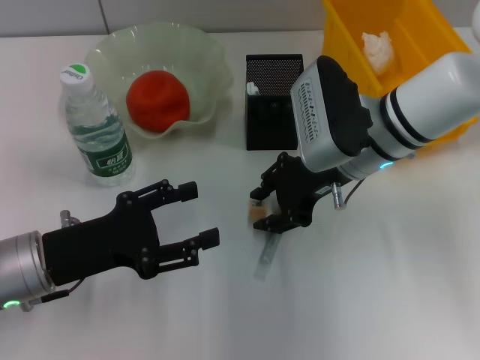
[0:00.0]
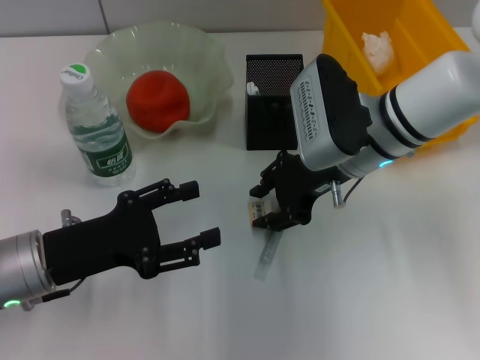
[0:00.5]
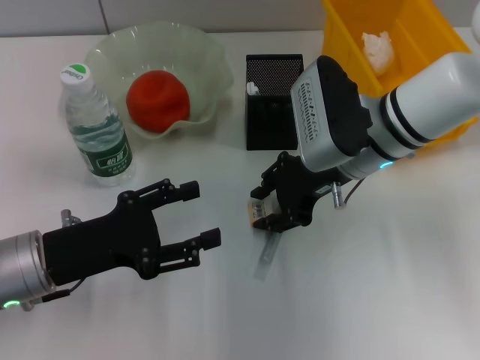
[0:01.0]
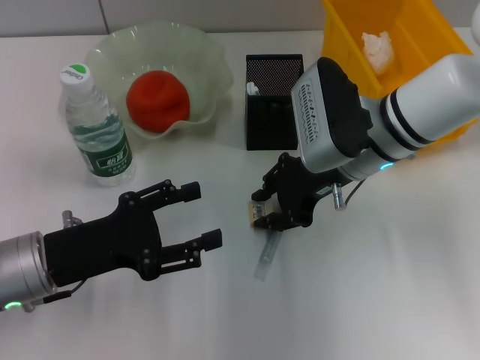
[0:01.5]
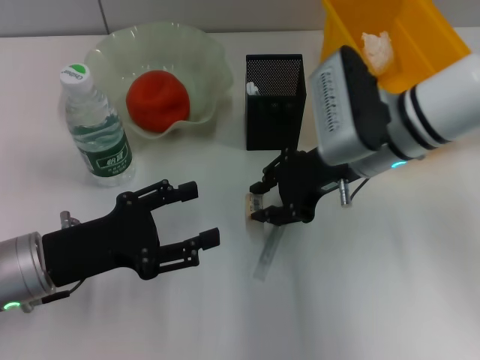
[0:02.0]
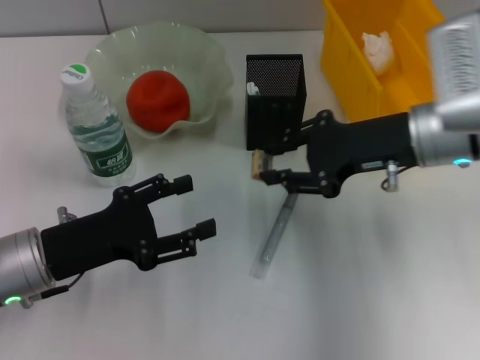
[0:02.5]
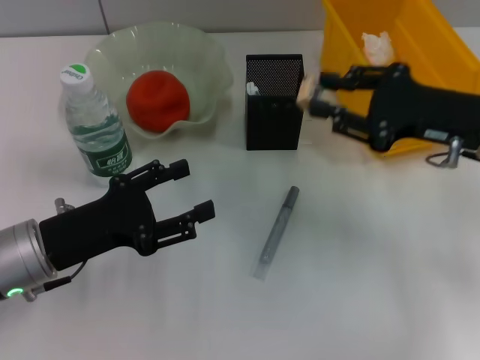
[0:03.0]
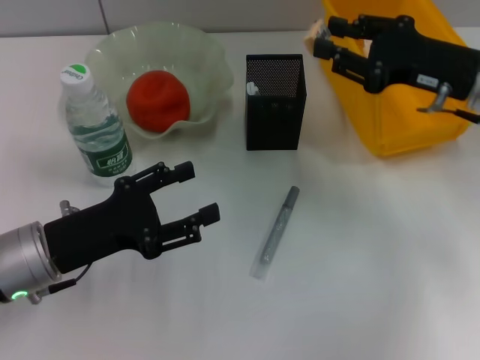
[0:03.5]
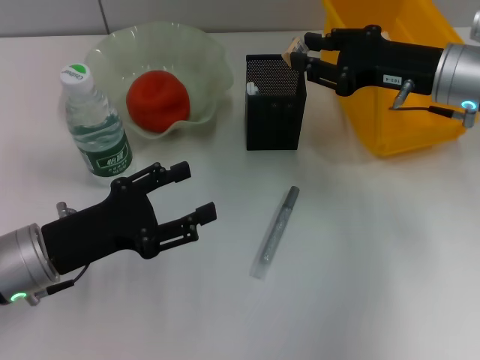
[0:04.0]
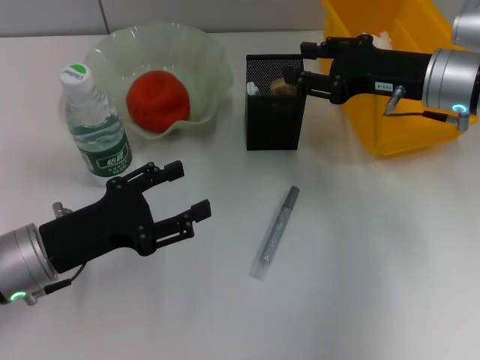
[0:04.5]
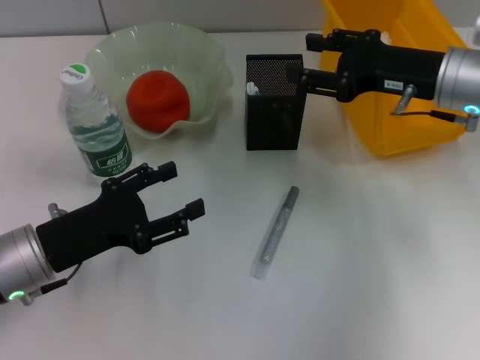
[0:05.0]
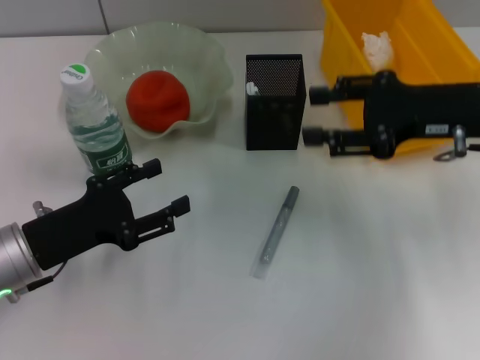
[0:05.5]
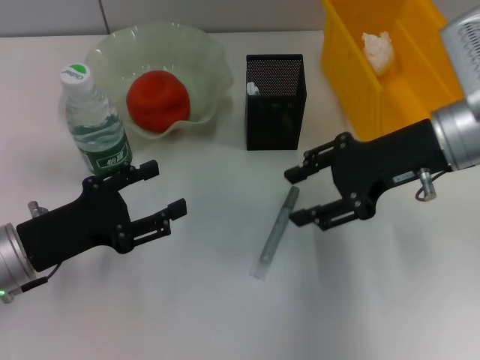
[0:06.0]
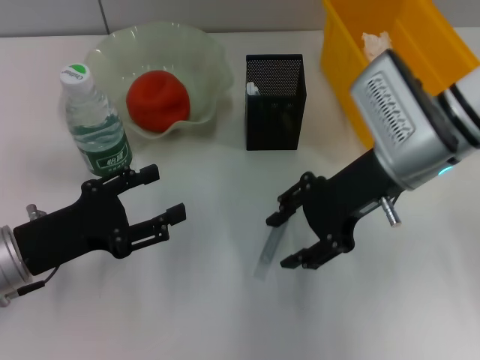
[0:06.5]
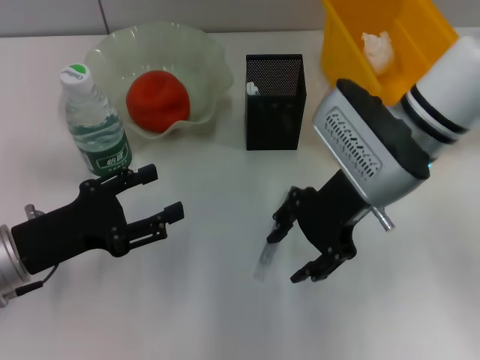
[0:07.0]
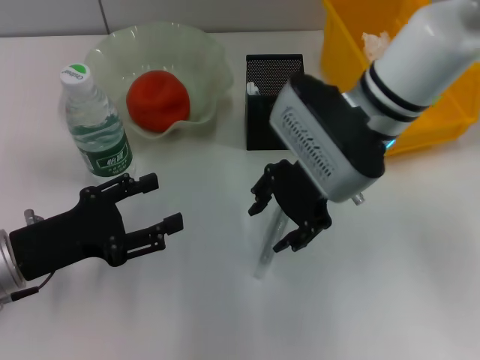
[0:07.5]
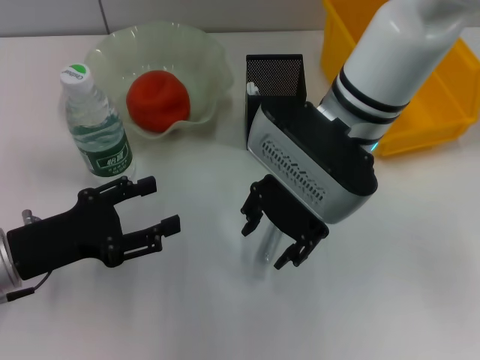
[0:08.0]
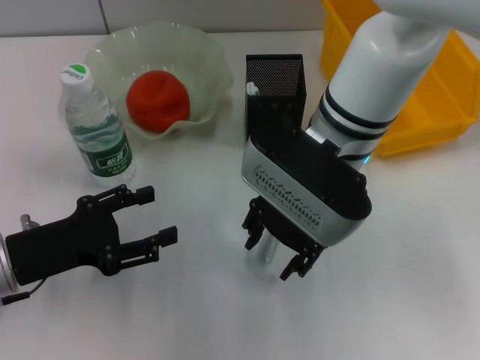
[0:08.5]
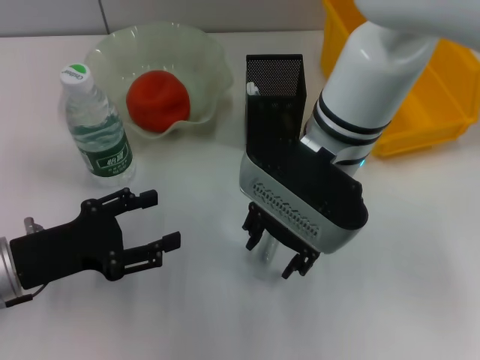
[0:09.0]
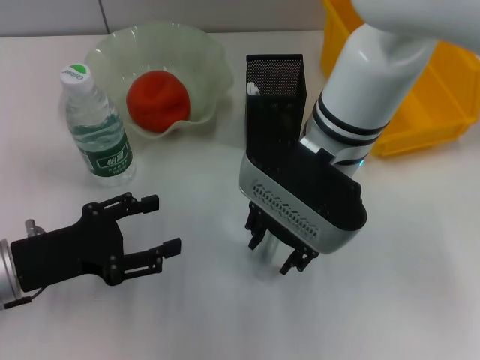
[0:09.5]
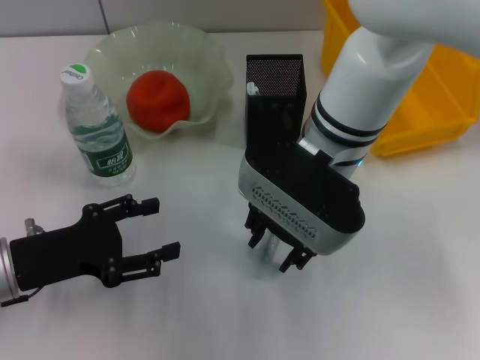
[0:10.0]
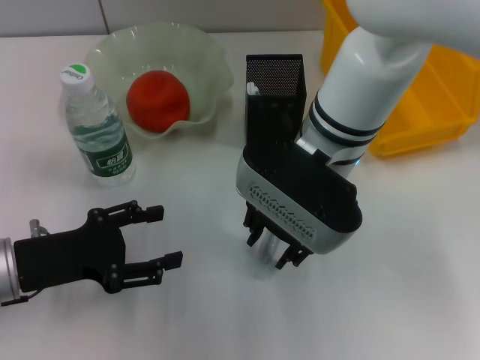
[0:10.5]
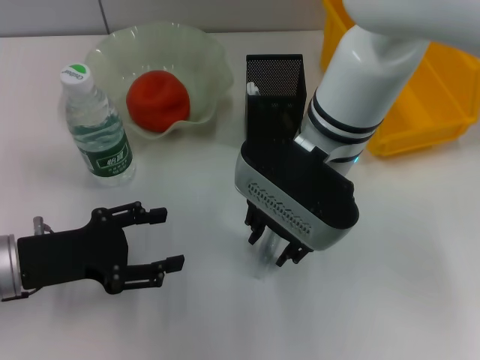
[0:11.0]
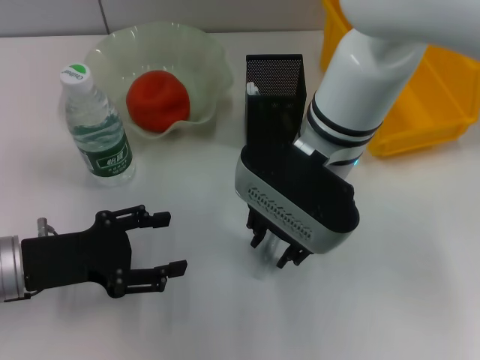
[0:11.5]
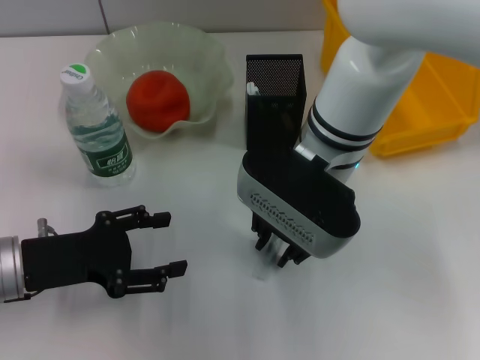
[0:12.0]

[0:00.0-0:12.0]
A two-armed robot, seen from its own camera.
Step, 0:02.0 to 0:04.5: Put the eraser into the pen holder with the right hand.
0:00.0 to 0:02.0: The grippers stay close to where they were, moving slightly.
0:02.0 to 0:04.0: The right gripper travels to the right by some 10 cm.
0:06.0 to 0:08.0: The right gripper moves to the left, about 15 cm.
0:08.0 to 0:12.0: The grippers make only small movements.

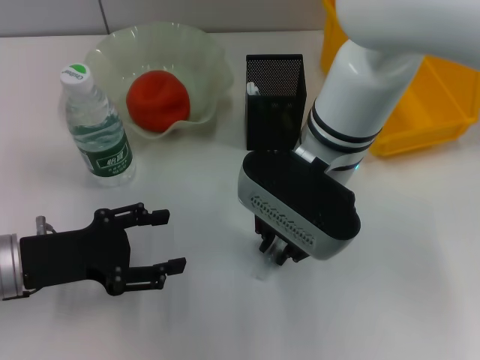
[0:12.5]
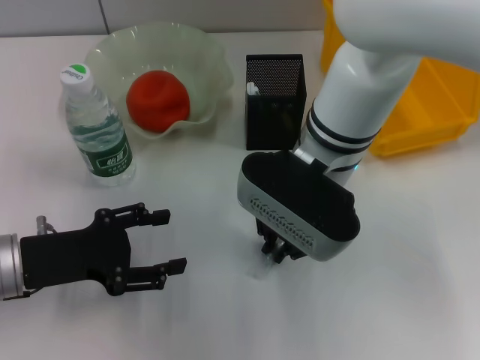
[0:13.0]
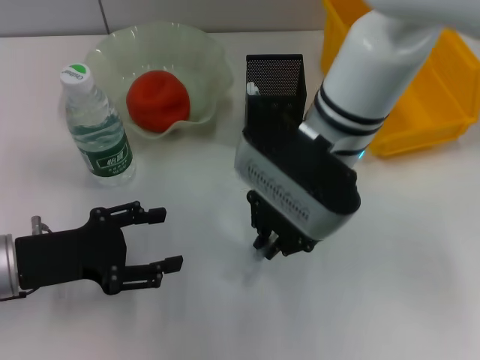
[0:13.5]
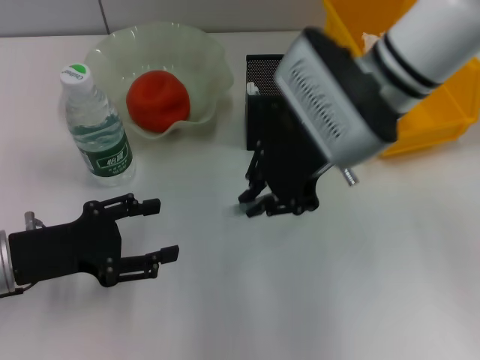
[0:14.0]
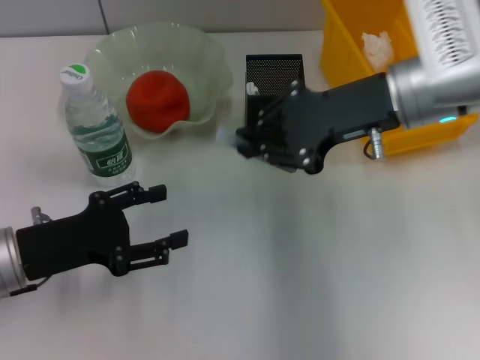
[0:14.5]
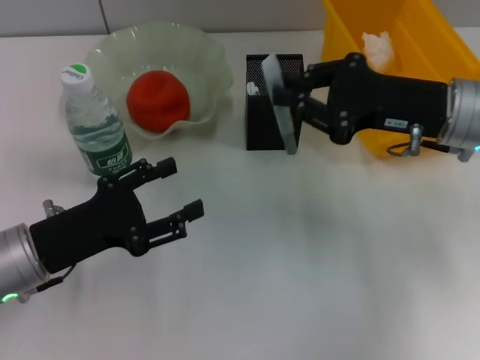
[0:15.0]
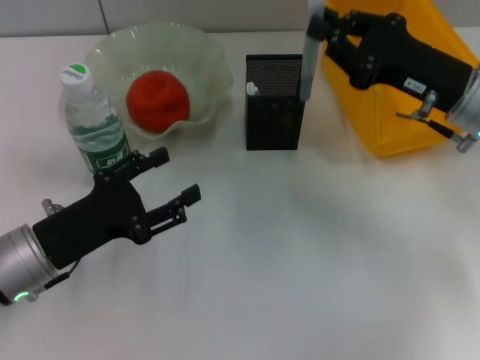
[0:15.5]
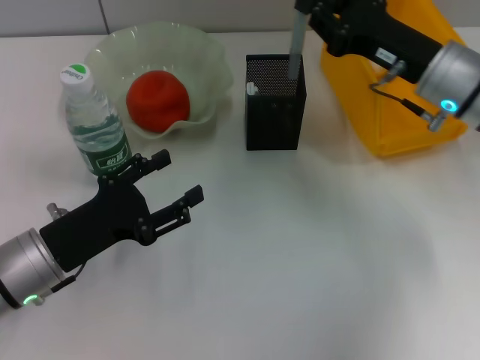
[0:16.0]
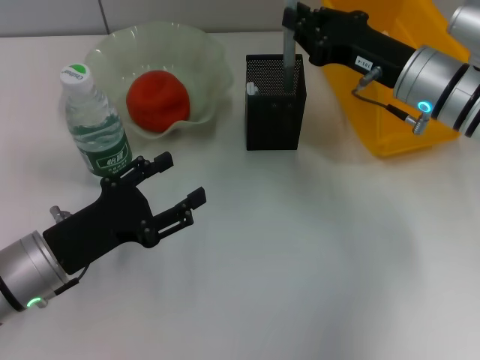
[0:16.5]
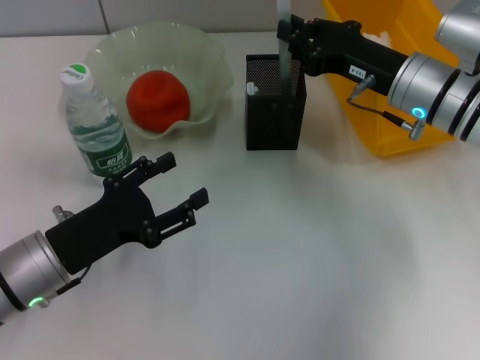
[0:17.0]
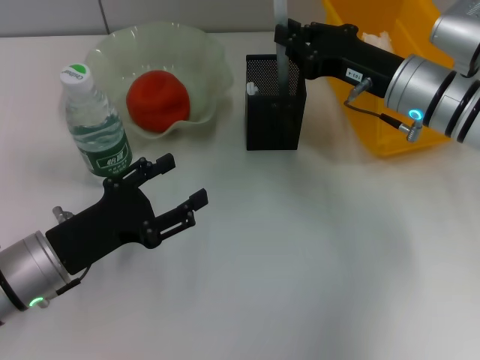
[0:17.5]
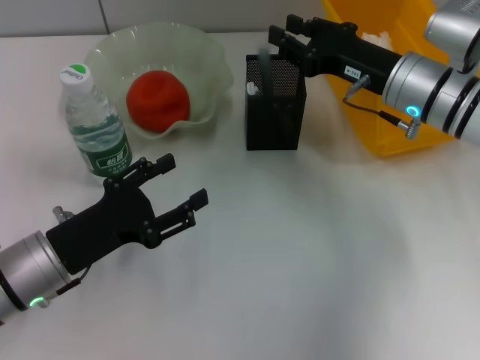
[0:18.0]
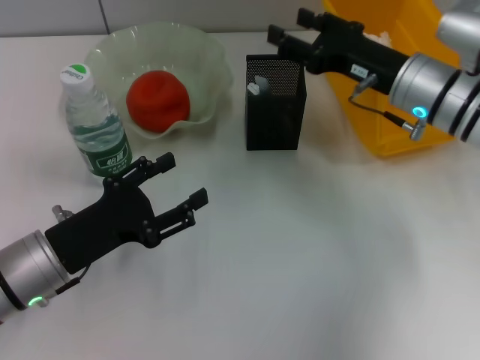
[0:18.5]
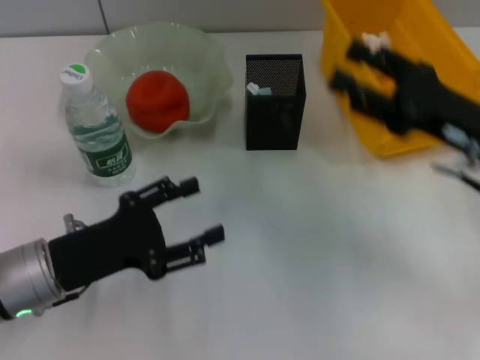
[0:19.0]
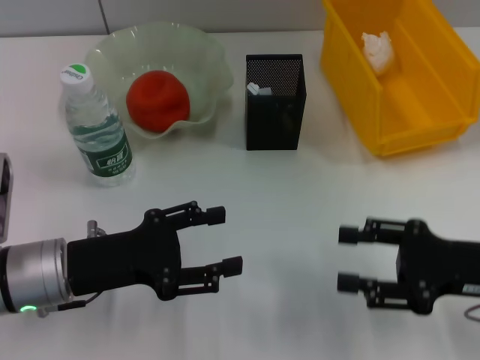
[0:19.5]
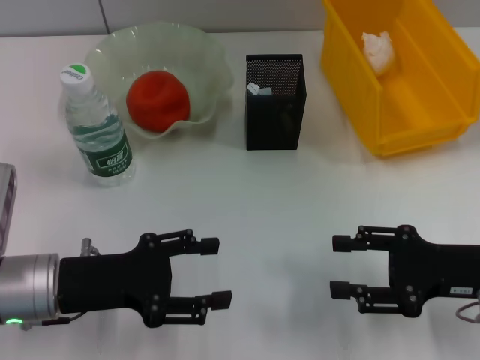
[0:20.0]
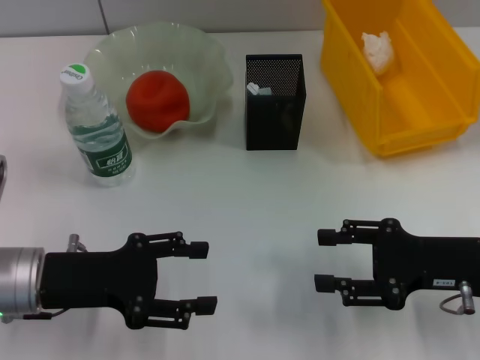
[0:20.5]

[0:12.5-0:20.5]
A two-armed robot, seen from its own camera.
Step, 0:13.5 to 0:18.0: Place the gray glue into the pen holder with the right hand.
0:12.5 to 0:14.5: The right gripper is displaced to the right by some 10 cm.
0:14.5 to 0:16.5: The right gripper heads downward, covering approximately 5 cm.
0:16.5 to 0:18.5: The right gripper opens its fingers.
0:18.5 to 0:20.5: The right gripper goes some 15 cm backward and to the right.

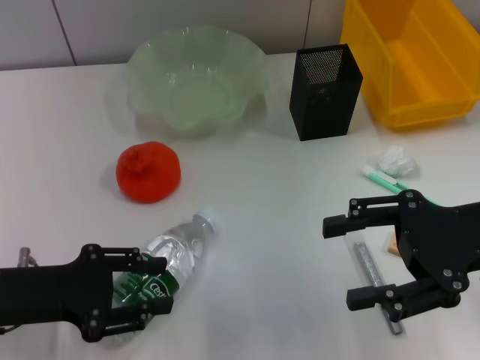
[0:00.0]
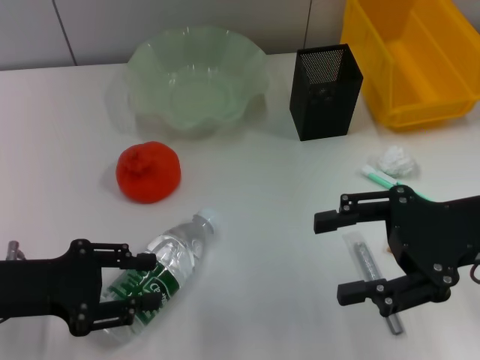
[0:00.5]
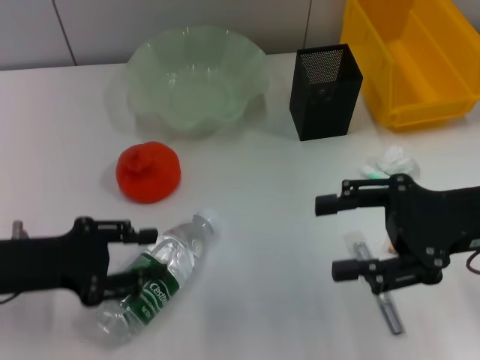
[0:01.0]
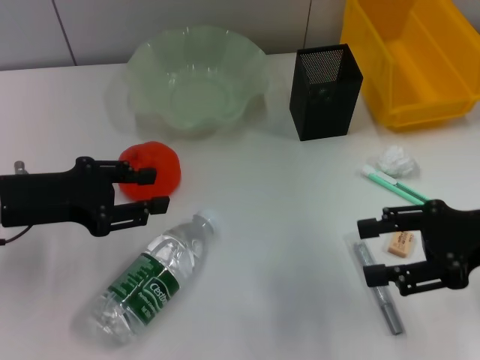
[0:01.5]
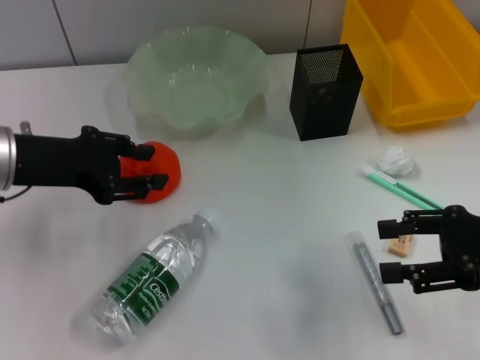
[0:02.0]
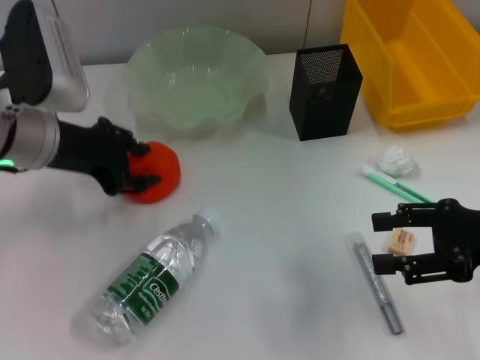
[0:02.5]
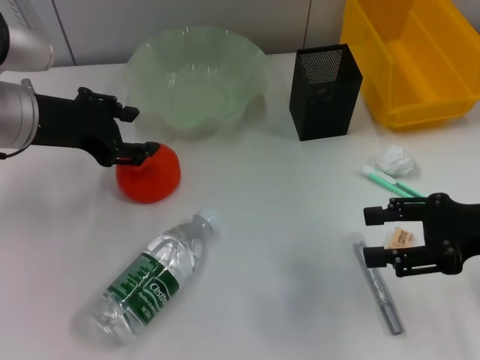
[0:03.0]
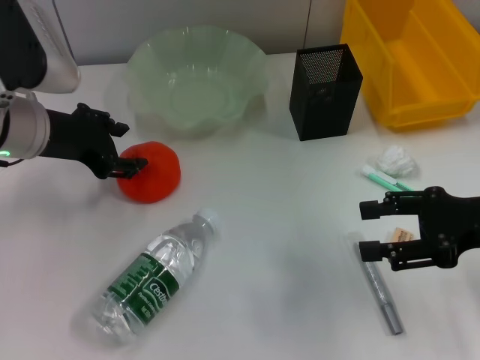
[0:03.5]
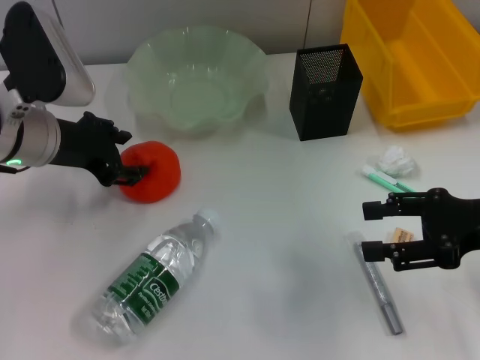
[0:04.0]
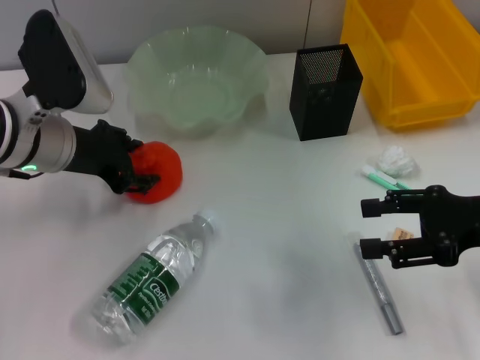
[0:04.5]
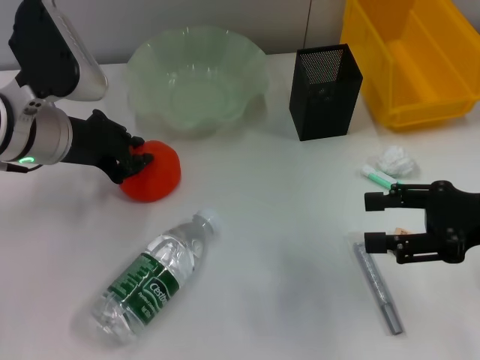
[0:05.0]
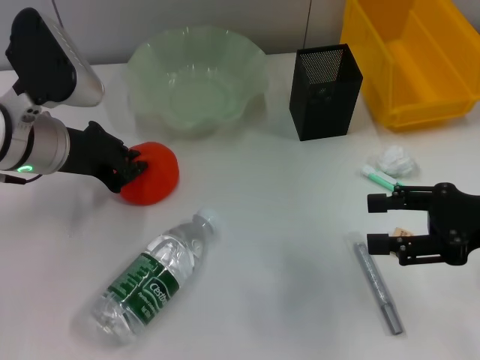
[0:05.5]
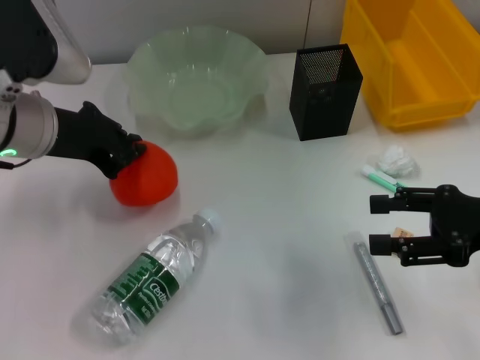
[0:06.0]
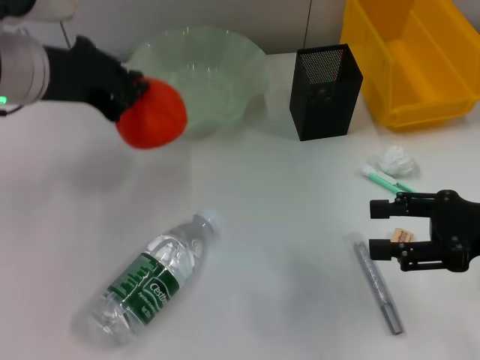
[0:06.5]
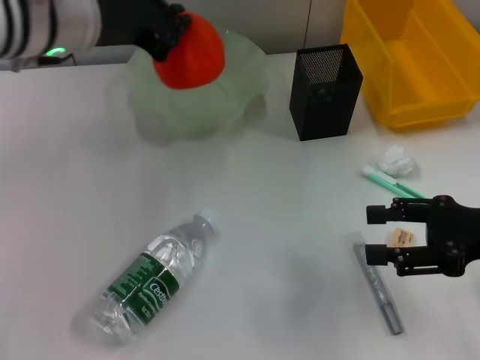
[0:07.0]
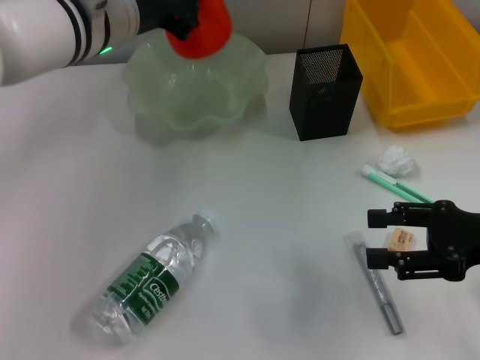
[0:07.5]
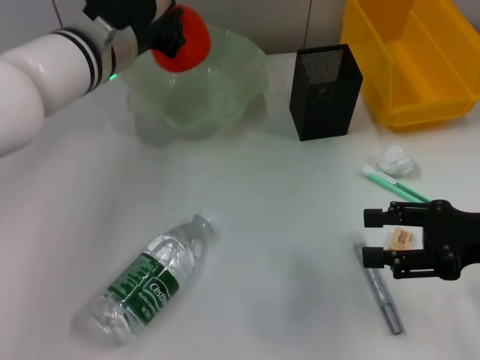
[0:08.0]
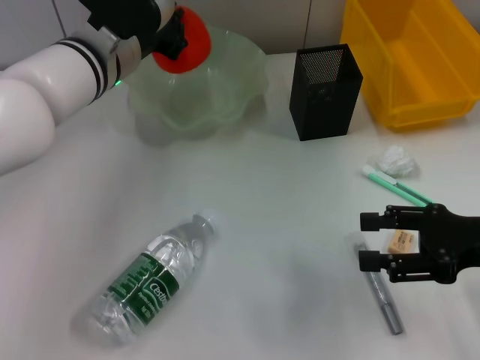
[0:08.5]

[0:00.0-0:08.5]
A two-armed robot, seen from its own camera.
Step, 0:00.0 to 0:04.5: Grab the orange with the left hand.
0:00.0 to 0:02.0: The left gripper travels forward and upward by about 10 cm. The right gripper ends up some 5 cm from where it was.
0:04.0 to 0:06.5: The left gripper is displaced upward by about 10 cm, and closes its fingers.
0:06.5 to 0:08.5: The left gripper heads downward, forward and to the right, covering some 10 cm.
